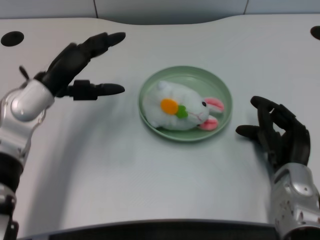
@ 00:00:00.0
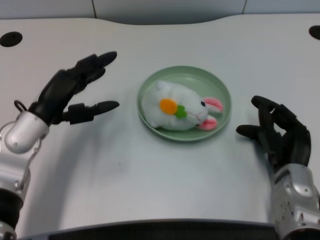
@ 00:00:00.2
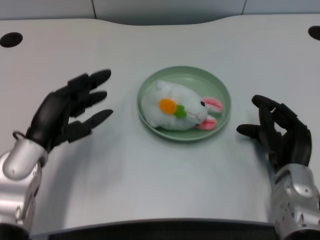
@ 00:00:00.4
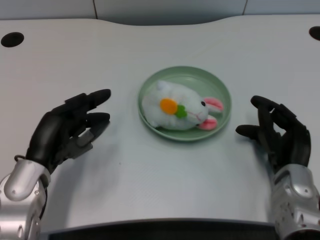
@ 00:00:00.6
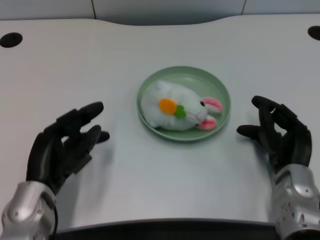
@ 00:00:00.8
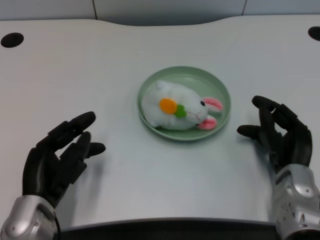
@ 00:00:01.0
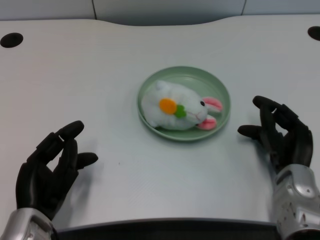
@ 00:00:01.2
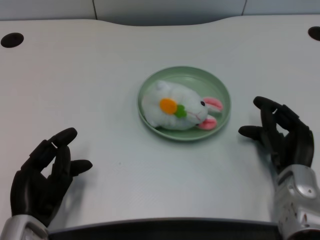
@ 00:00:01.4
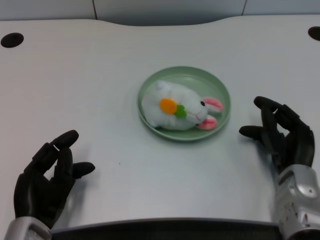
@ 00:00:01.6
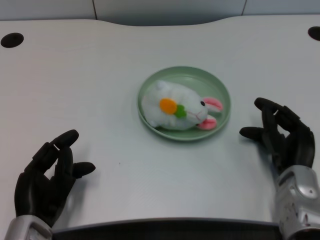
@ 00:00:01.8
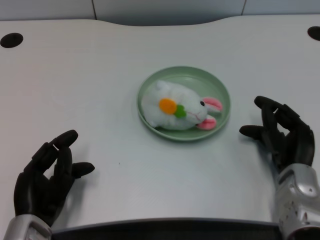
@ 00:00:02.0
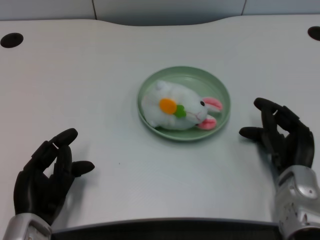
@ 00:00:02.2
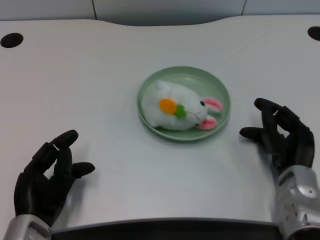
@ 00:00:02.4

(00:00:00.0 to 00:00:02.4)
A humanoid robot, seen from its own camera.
Task of the whole recording: pick up the rabbit doll from the table and place it on the plate.
00:00:00.0 - 00:00:01.2: The left hand travels backward and downward by some 15 cm.
00:00:01.2 - 00:00:02.4: The hands make only small movements.

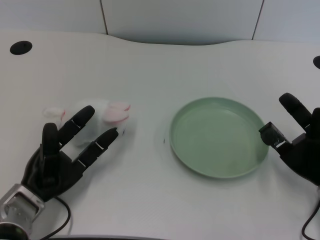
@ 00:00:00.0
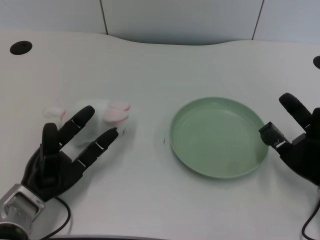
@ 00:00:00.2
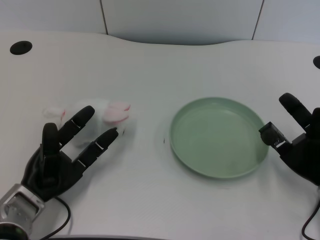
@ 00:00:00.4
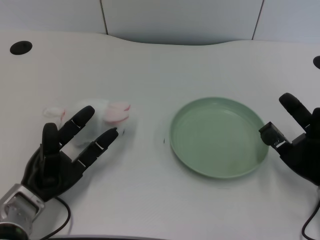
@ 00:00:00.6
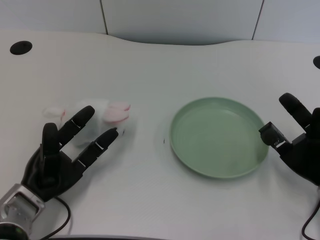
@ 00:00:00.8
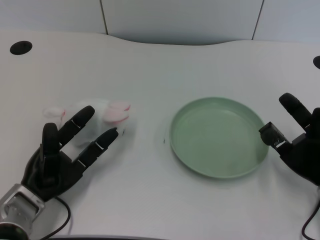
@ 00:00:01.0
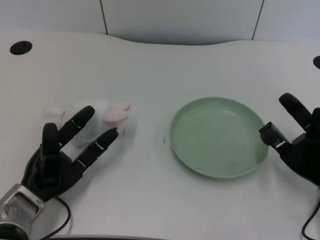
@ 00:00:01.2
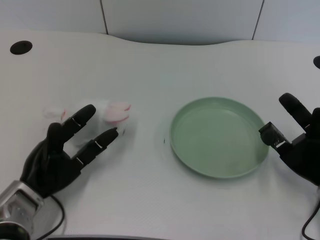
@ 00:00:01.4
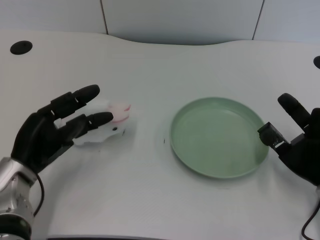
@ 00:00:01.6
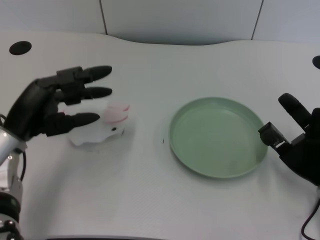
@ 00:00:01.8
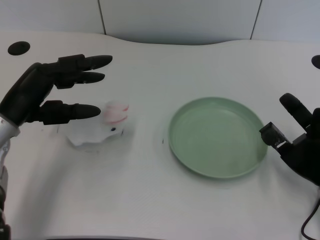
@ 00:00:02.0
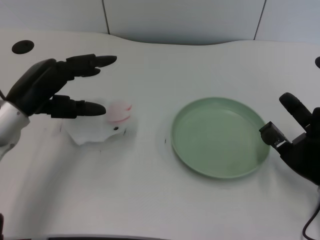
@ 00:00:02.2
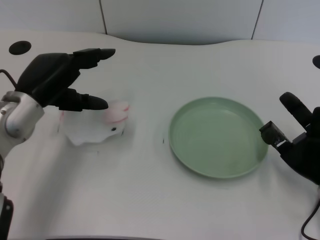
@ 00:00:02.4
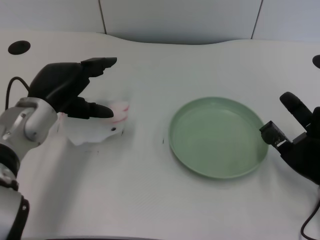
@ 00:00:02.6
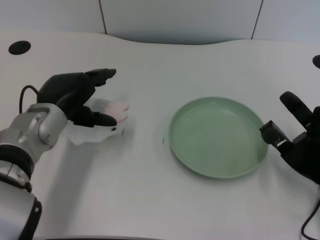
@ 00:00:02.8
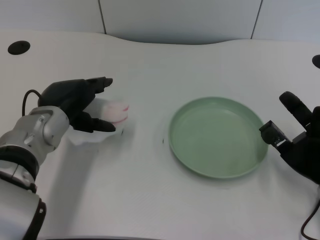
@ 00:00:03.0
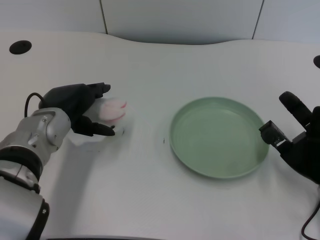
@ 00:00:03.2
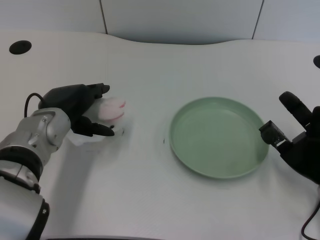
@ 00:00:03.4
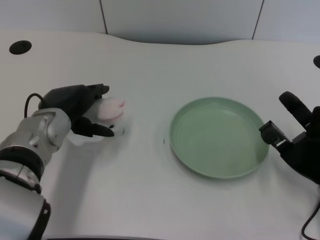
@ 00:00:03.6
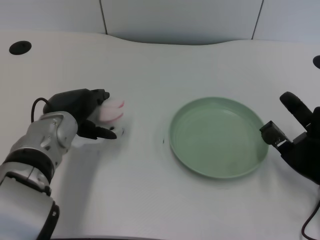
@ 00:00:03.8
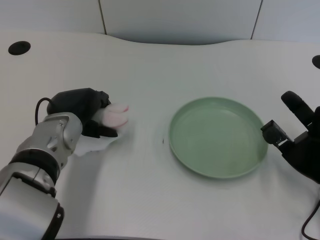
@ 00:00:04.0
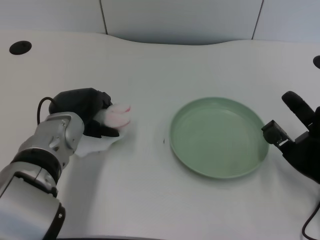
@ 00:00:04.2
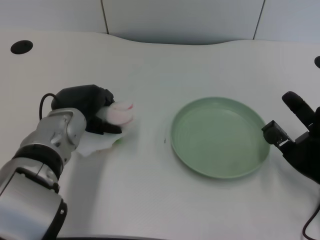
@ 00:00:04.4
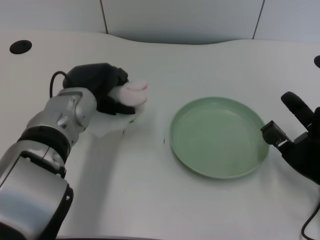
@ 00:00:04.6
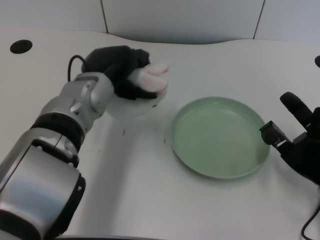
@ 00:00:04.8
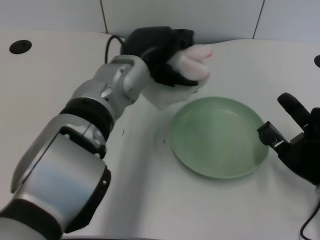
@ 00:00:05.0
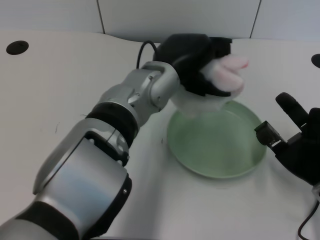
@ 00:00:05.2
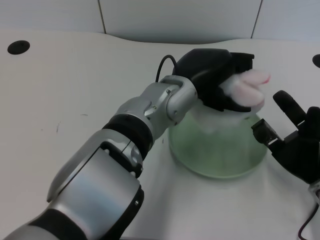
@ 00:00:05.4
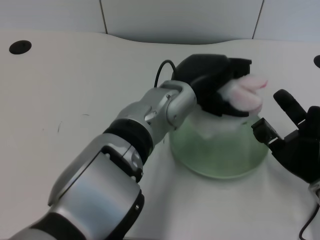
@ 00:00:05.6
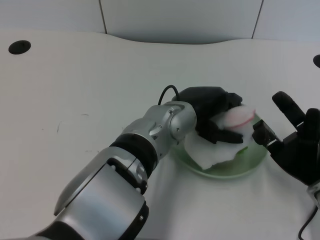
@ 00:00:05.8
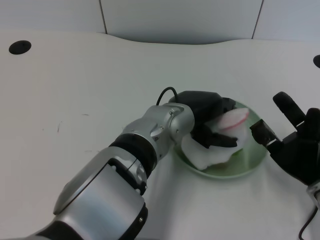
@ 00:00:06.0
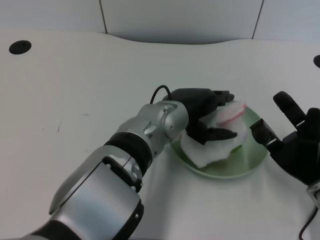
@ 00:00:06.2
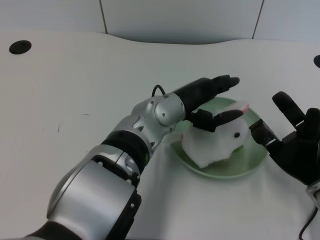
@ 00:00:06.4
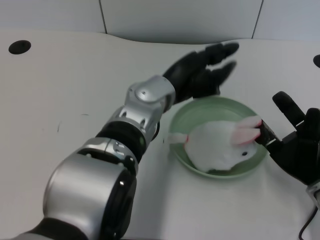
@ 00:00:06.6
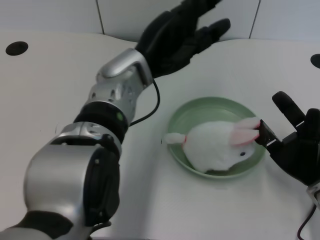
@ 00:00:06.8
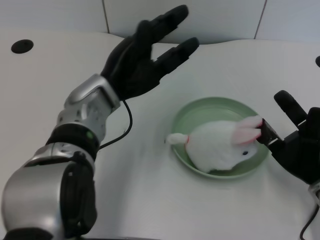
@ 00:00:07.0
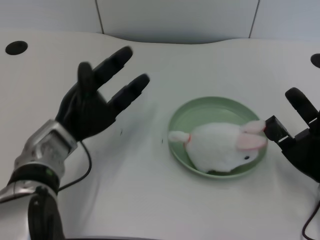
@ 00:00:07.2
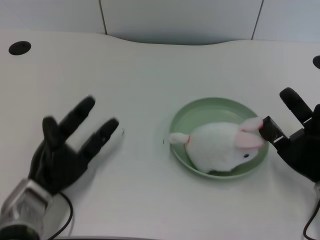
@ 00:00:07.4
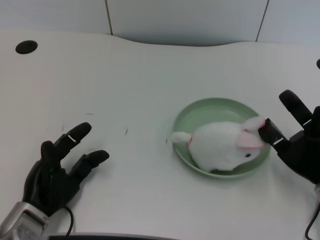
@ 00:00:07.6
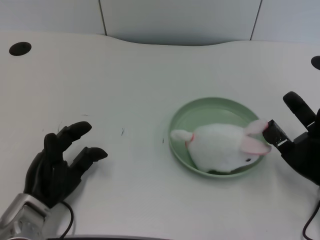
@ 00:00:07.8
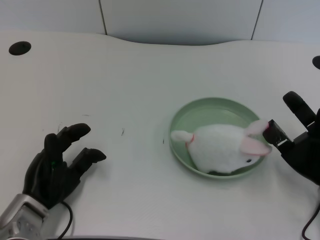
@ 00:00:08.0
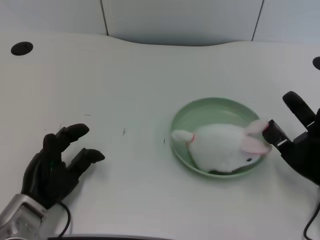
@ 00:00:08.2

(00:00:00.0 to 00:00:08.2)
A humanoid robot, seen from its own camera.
Task of the whole recording: pick up the rabbit doll from the table and place it on the plate.
Step, 00:00:01.4 - 00:00:04.4: Grasp the rabbit doll with the left gripper.
Step, 00:00:04.6 - 00:00:06.4: Place the rabbit doll into the plate with the left gripper.
00:00:01.6 - 00:00:03.2: The left hand heads to the right and forward, covering some 10 cm.
00:00:03.2 - 00:00:05.0: The left hand is displaced to the right and upward by roughly 15 cm.
00:00:06.6 - 00:00:08.2: The left hand is displaced to the left, downward and backward by some 25 cm.
